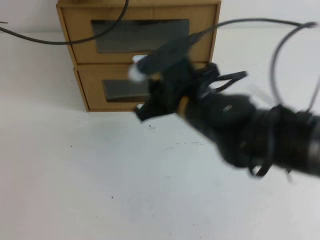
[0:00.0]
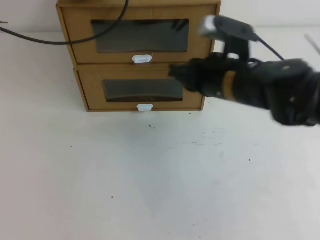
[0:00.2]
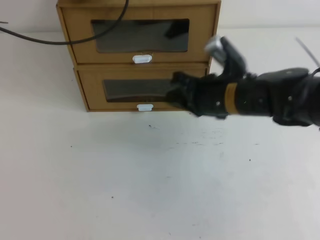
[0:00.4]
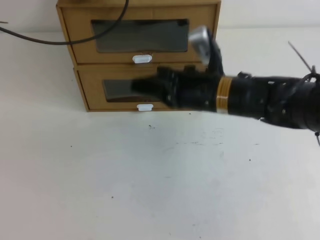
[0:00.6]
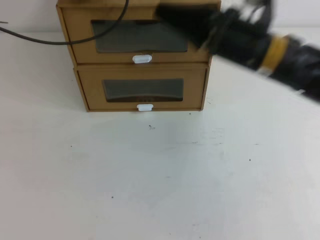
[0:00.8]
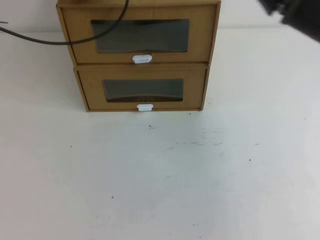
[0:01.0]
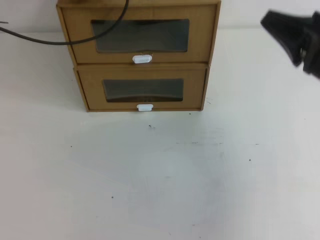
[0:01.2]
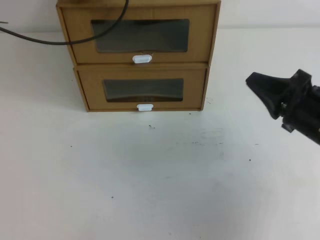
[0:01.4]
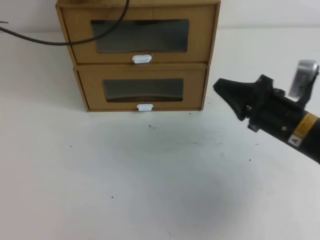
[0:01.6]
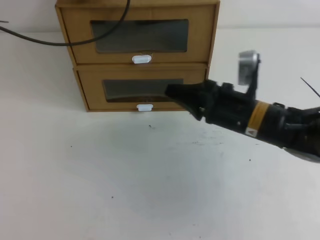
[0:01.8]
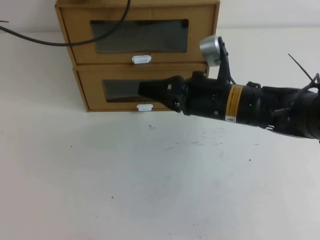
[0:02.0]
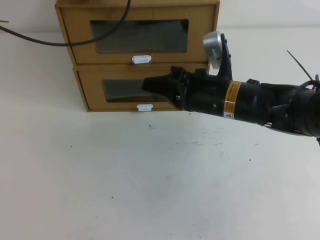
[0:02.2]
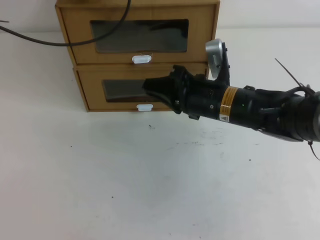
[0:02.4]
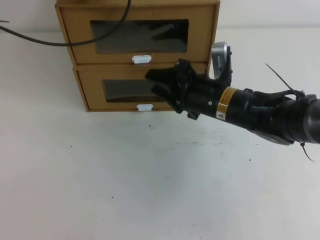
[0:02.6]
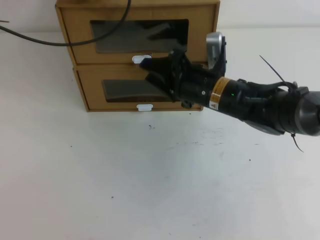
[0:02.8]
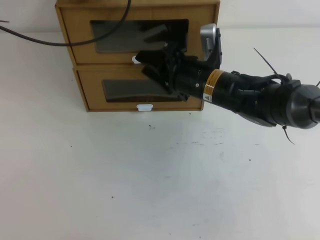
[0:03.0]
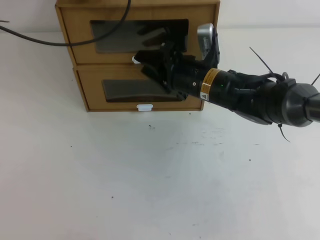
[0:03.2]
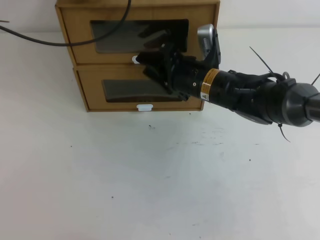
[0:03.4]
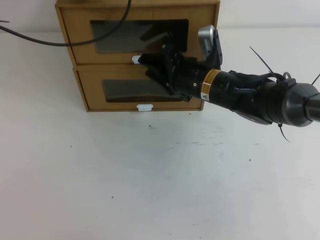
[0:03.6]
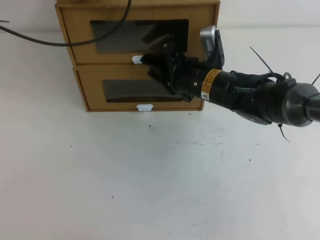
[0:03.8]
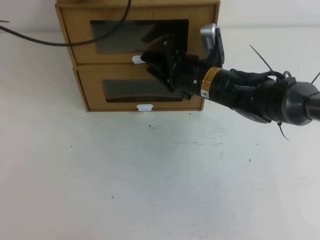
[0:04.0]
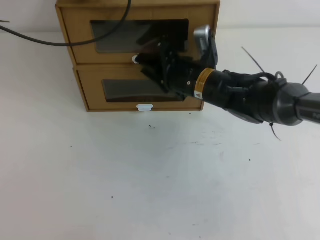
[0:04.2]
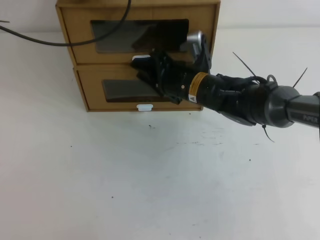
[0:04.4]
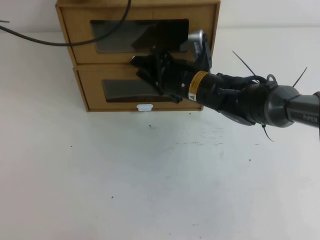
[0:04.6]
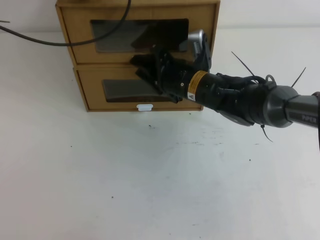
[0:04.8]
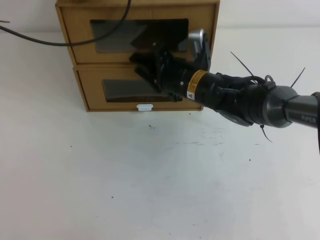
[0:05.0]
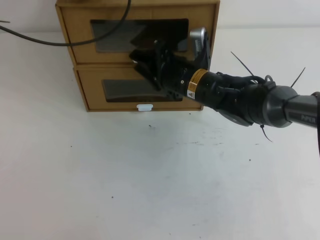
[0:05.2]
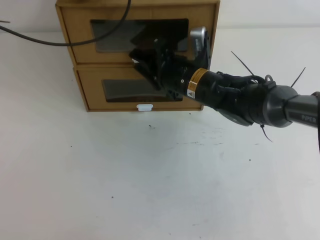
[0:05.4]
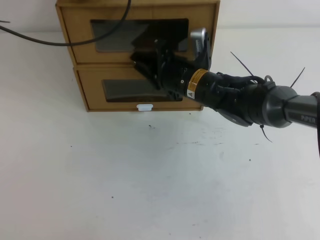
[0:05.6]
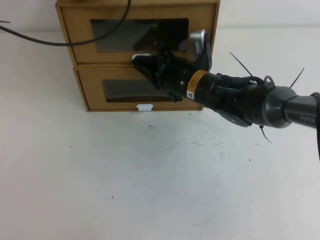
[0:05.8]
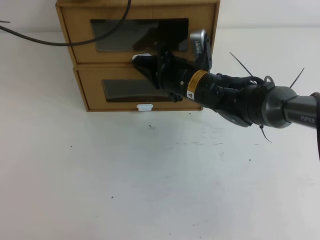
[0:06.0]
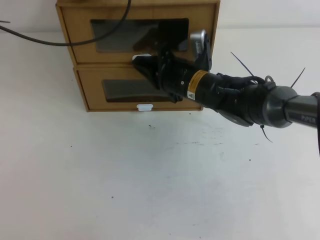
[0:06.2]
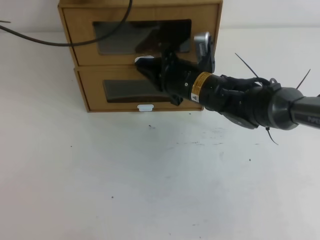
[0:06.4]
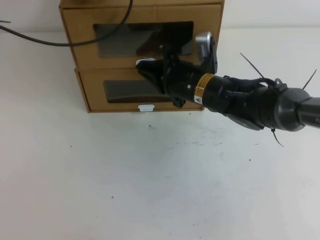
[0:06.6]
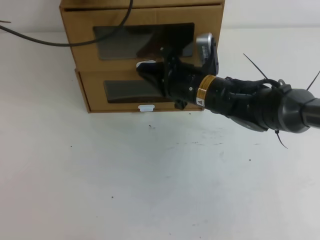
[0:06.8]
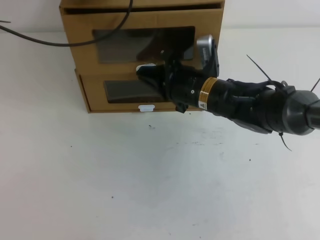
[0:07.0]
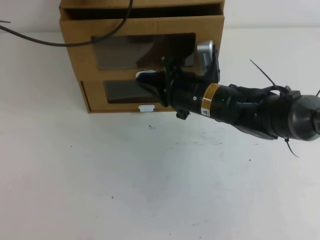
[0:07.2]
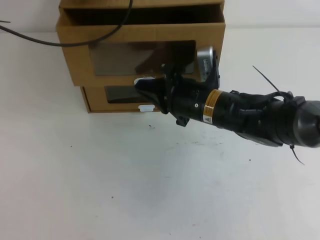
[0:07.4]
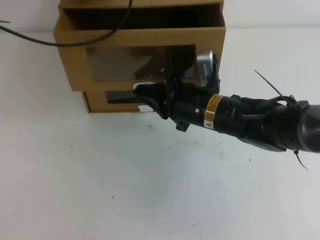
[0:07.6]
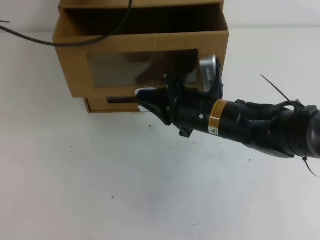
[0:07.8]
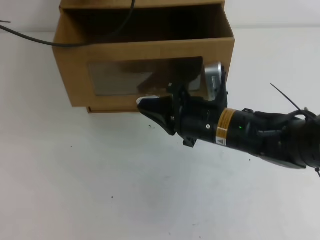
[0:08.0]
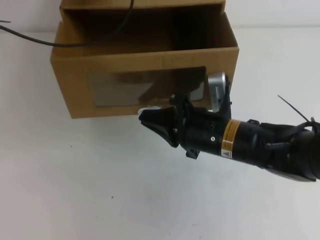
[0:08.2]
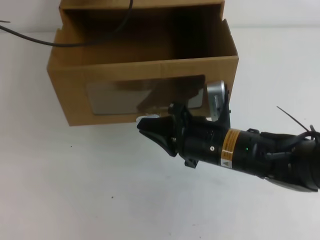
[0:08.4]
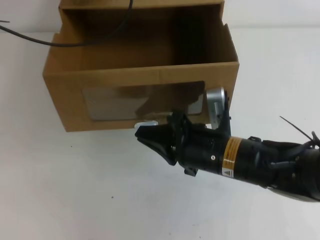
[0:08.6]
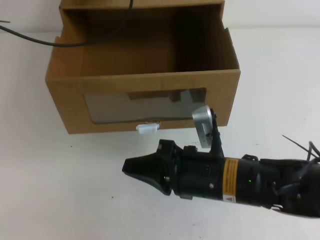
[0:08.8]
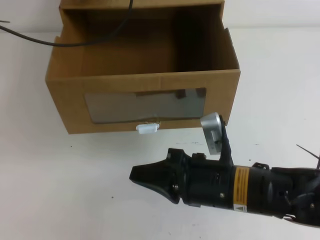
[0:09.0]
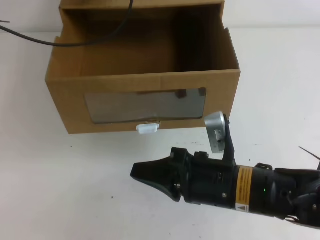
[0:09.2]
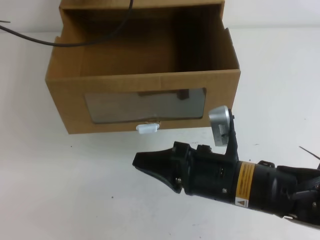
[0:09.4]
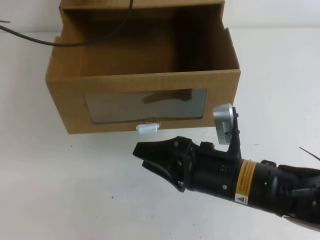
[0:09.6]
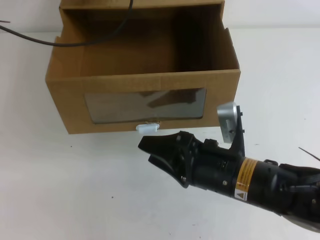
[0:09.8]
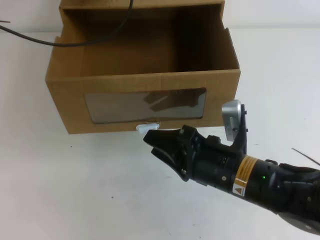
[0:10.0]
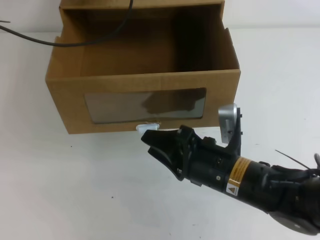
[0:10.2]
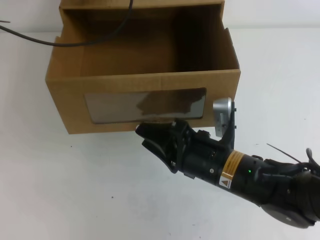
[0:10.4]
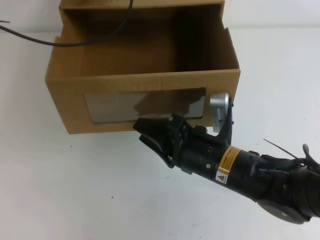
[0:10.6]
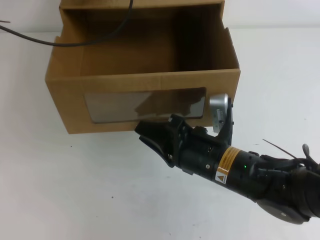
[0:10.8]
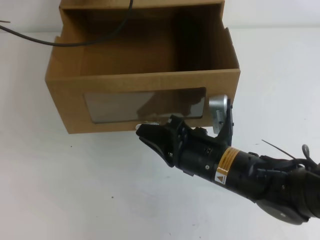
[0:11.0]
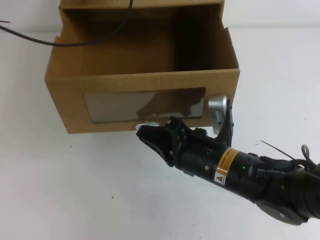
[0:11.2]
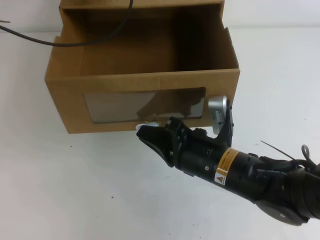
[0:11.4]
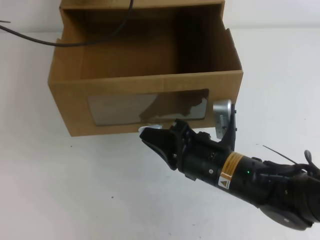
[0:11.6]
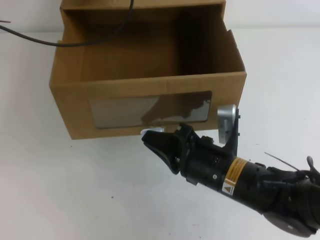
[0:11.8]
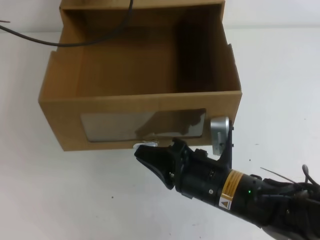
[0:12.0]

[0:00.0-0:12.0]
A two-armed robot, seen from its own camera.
Task of the whole recording: open the shoebox on the table.
0:00.0 to 0:01.6: The right gripper heads to the right, covering some 15 cm, and closes up.
0:01.6 to 0:03.0: The right gripper is displaced to the left and forward by some 15 cm, and opens its fingers.
0:03.0 to 0:04.4: The grippers stay close to where they were, moving slightly.
0:04.4 to 0:06.0: The right gripper closes its fingers.
0:06.0 to 0:07.6: The right gripper moves backward, about 5 cm.
0:07.6 to 0:09.0: The right gripper is displaced backward by some 15 cm.
0:09.0 to 0:10.4: The right gripper opens.
0:10.4 to 0:12.0: The right gripper closes its fingers.

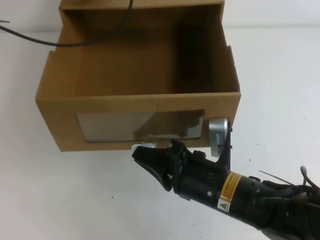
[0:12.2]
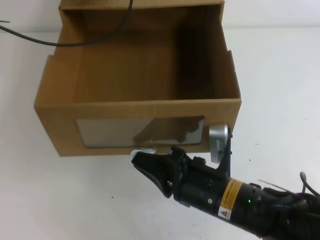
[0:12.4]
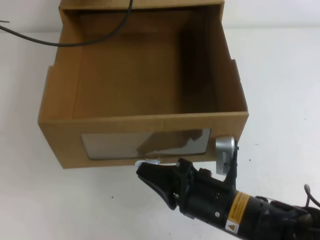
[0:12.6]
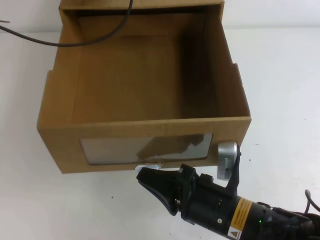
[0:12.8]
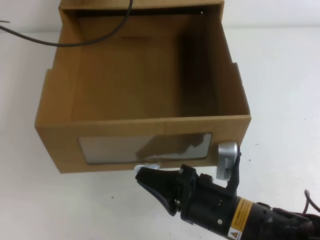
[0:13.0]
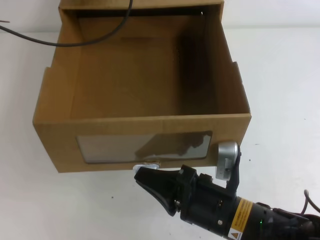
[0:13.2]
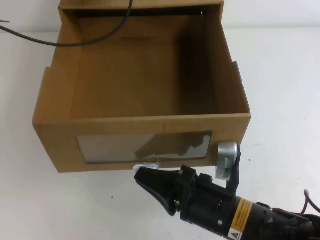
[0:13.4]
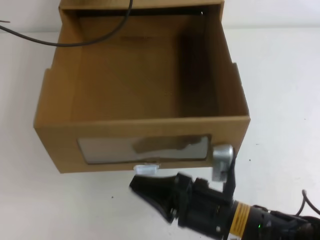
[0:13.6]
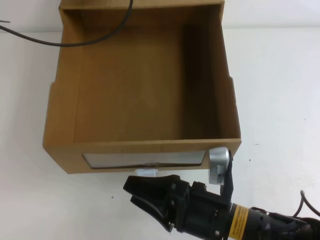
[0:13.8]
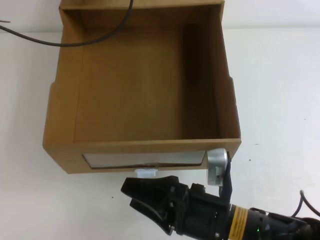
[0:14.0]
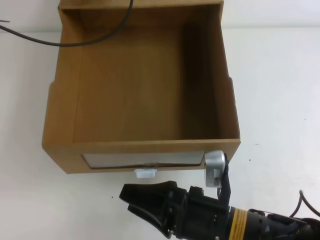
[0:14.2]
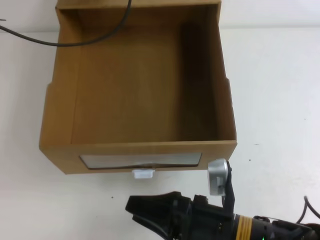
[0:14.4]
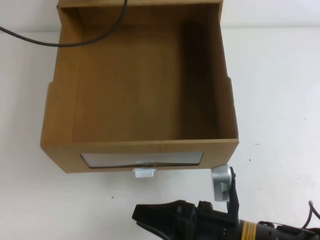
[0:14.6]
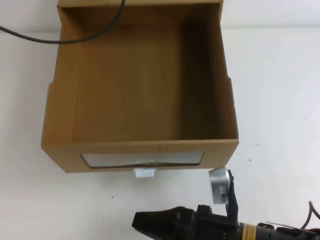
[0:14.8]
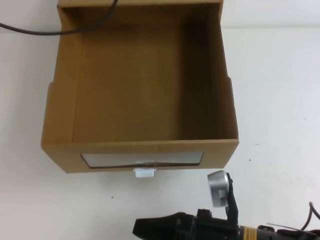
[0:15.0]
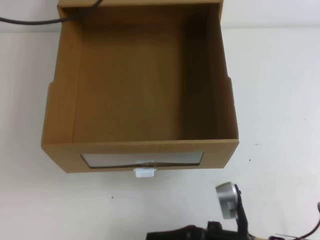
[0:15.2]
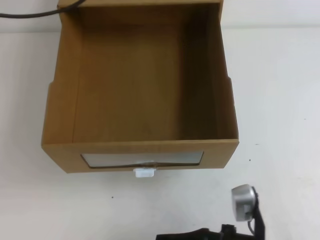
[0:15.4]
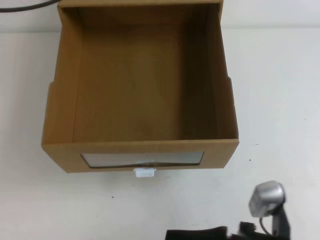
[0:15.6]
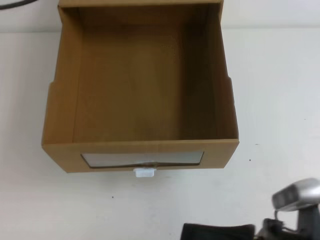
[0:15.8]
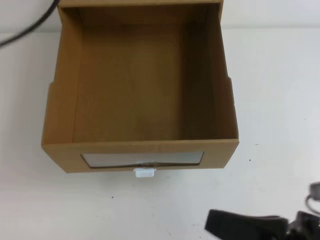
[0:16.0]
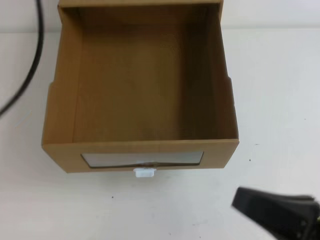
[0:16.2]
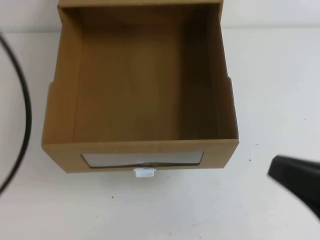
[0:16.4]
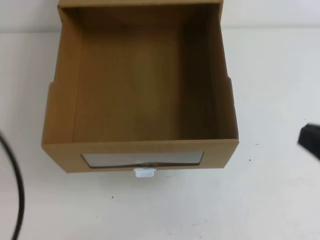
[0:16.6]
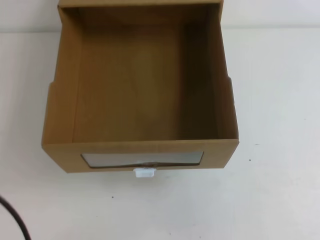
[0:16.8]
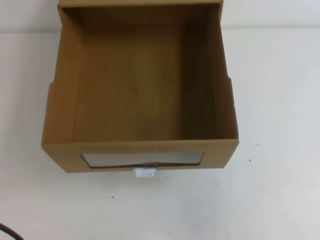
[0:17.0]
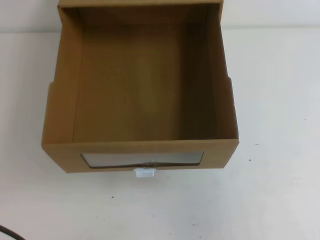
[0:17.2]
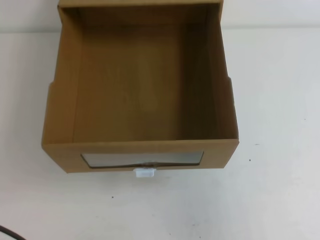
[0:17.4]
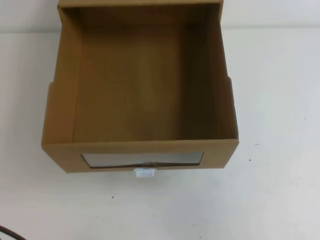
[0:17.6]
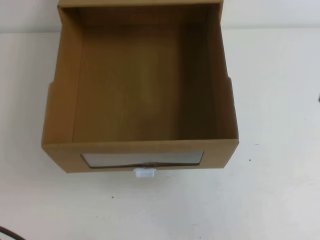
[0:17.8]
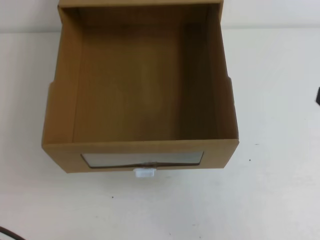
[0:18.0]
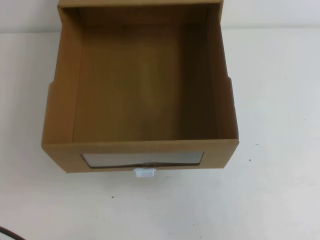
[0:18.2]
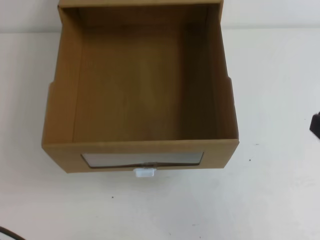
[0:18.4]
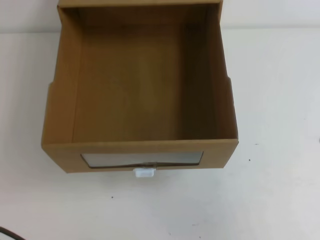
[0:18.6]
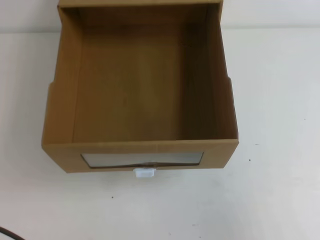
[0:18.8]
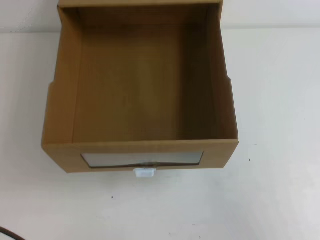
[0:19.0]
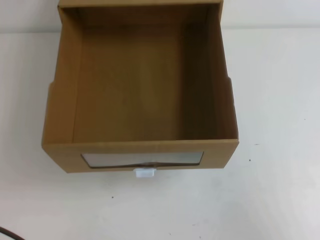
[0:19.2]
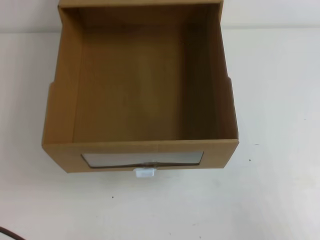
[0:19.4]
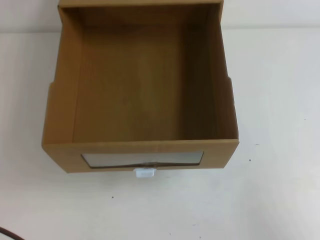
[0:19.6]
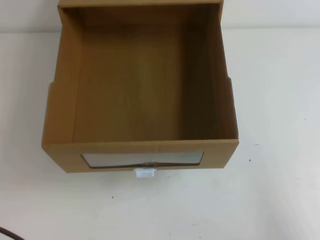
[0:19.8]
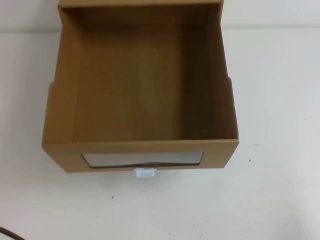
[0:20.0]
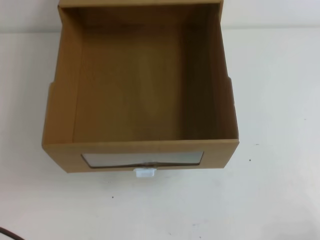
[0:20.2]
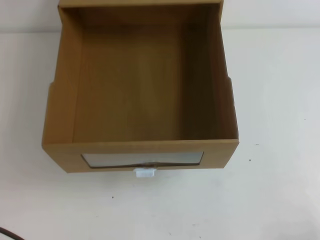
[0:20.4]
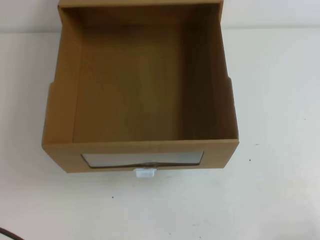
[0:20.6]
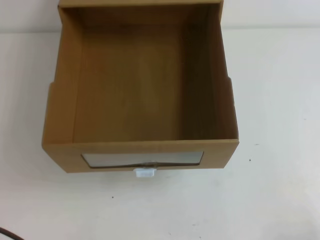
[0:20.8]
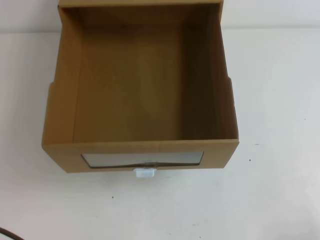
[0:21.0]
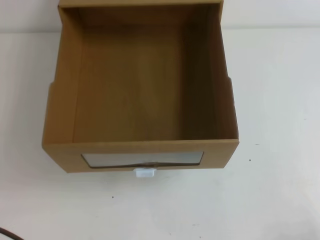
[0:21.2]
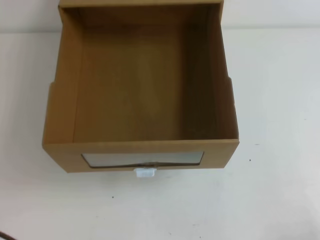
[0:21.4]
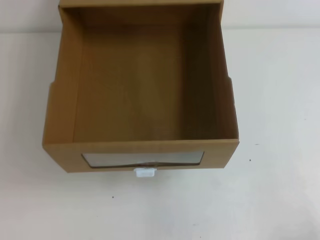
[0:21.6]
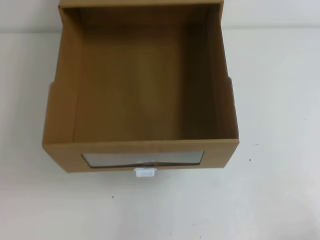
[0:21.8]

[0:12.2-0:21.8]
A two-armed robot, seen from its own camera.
Task of the whole recording: open the shoebox on the table.
0:12.2 to 0:13.8: The right gripper opens its fingers.
0:13.8 to 0:15.4: The left gripper goes approximately 15 cm upward and backward, and opens and closes again; the right gripper moves roughly 5 cm, and closes.
0:15.4 to 0:17.0: The right gripper moves upward and to the right, about 25 cm; the left gripper goes some 35 cm backward and downward.
0:18.6 to 0:20.2: The right gripper is displaced downward and to the right by roughly 15 cm.

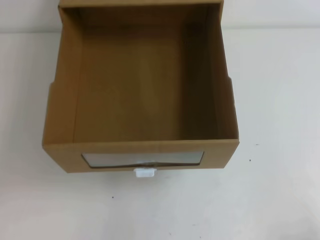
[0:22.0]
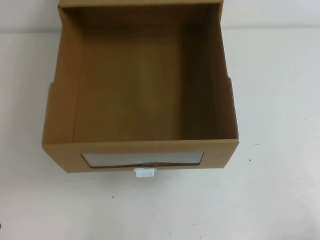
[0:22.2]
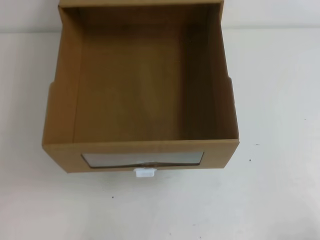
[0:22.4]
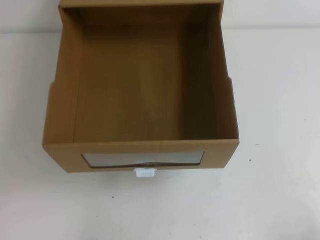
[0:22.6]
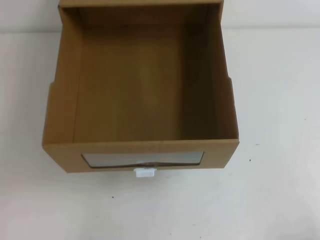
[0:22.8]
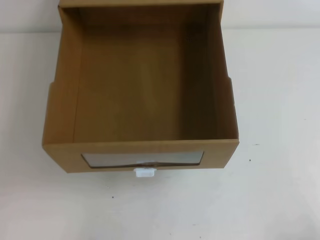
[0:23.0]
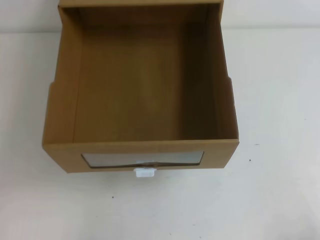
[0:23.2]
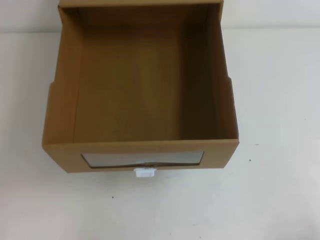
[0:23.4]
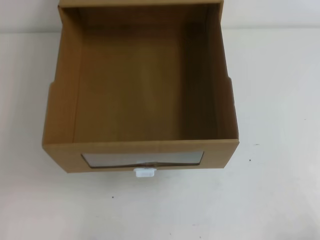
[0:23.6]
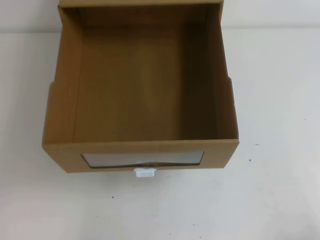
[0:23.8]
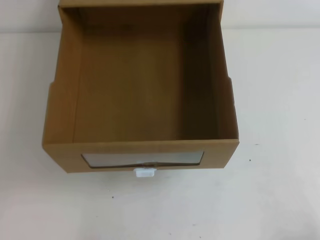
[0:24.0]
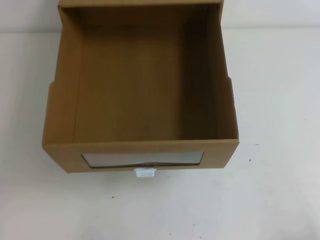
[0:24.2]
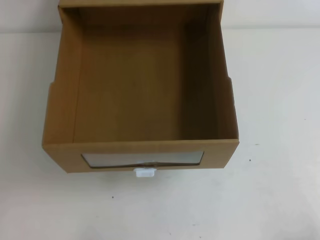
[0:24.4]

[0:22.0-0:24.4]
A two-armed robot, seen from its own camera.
Task of the whole recording: open the shoebox on the table.
0:23.2 to 0:24.4: Both grippers stay about where they are.
